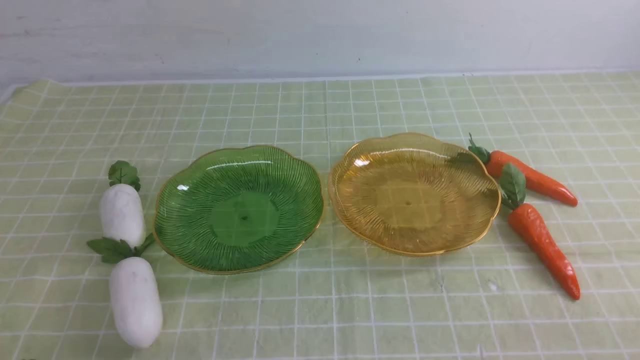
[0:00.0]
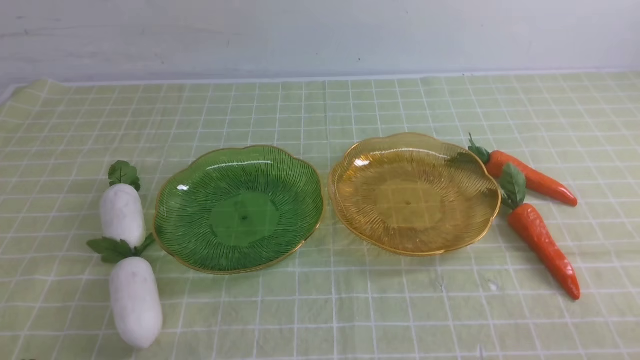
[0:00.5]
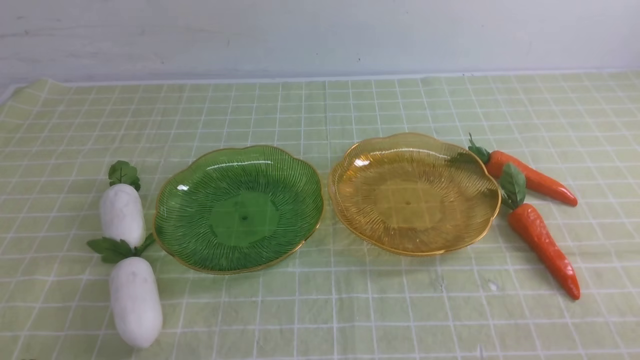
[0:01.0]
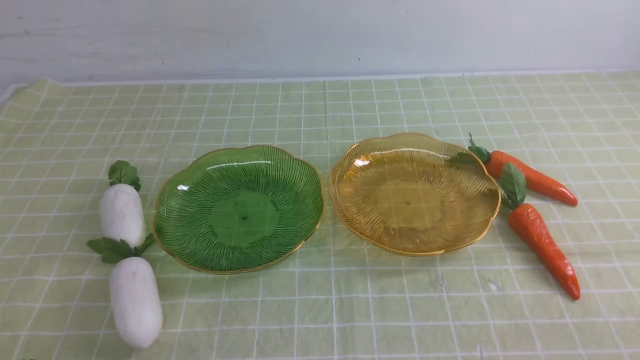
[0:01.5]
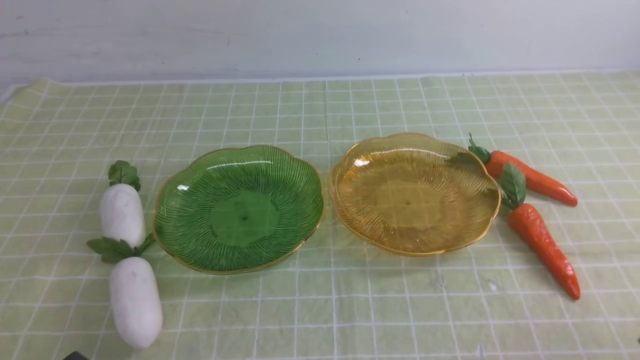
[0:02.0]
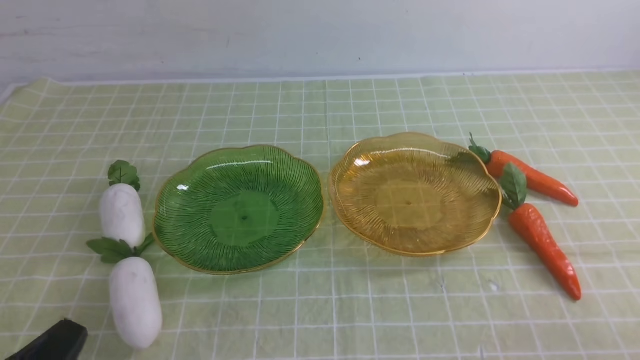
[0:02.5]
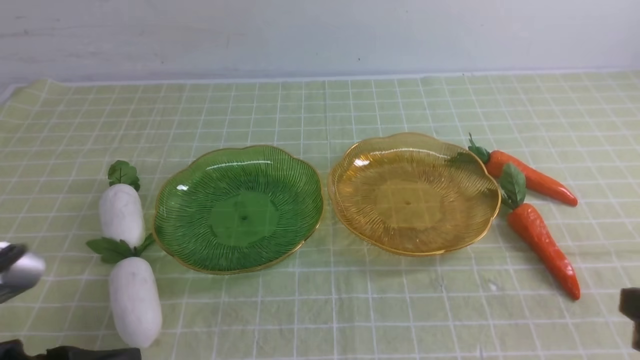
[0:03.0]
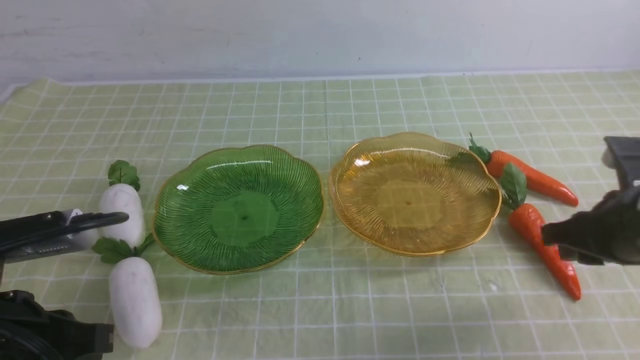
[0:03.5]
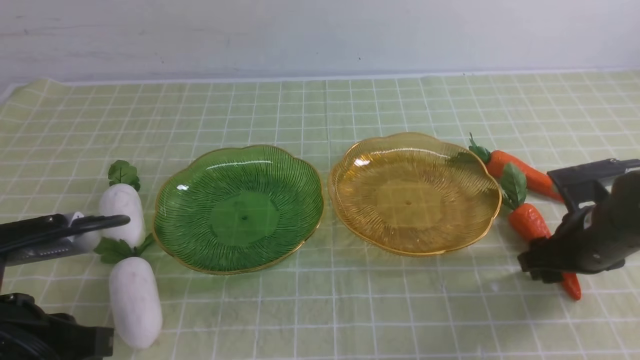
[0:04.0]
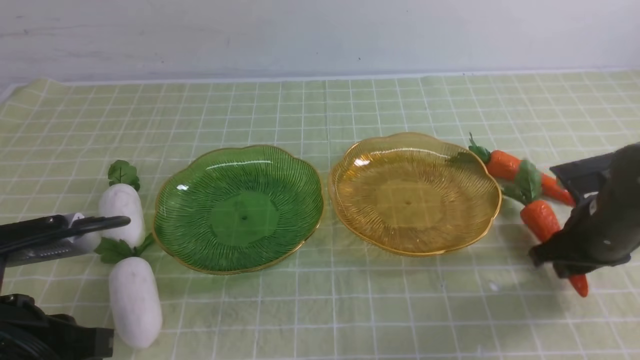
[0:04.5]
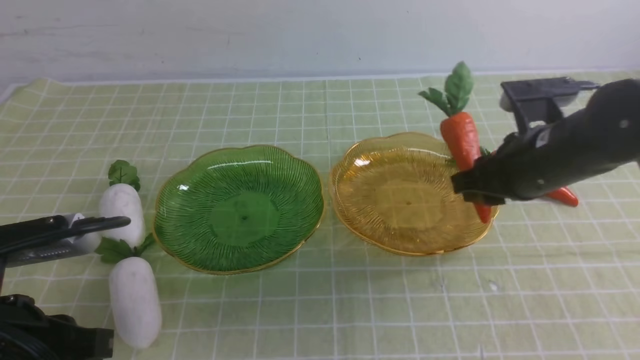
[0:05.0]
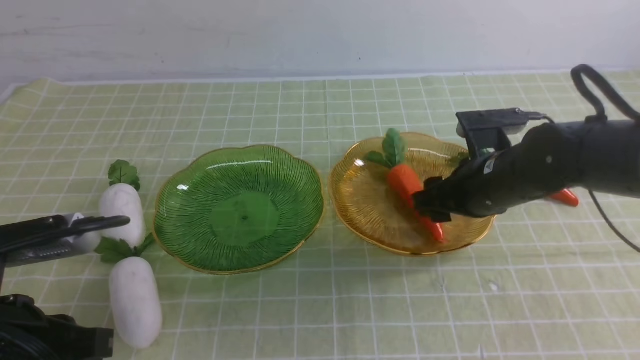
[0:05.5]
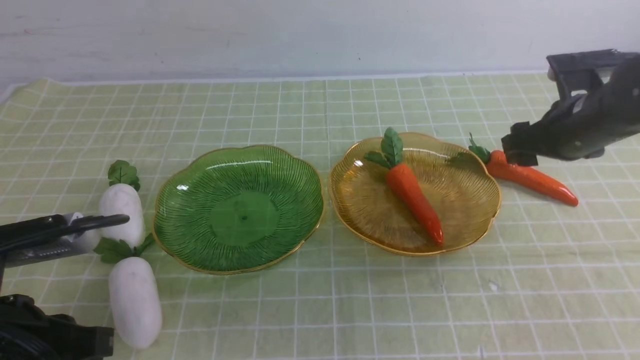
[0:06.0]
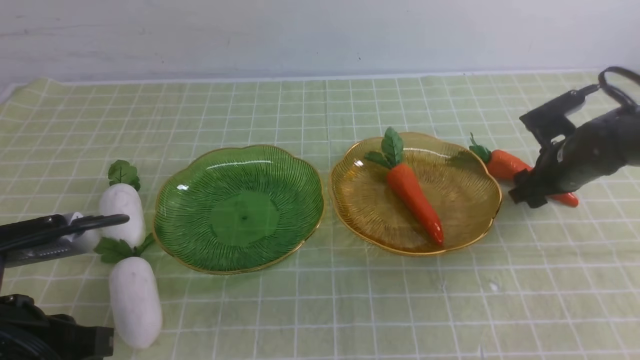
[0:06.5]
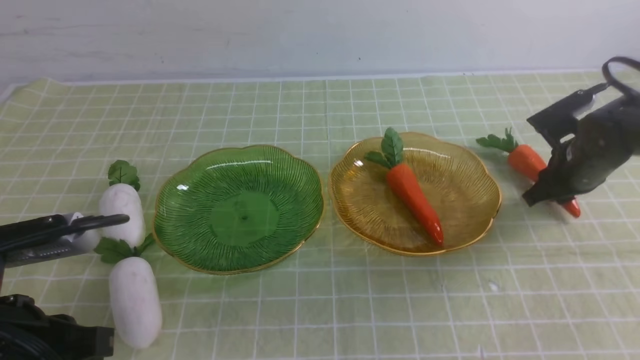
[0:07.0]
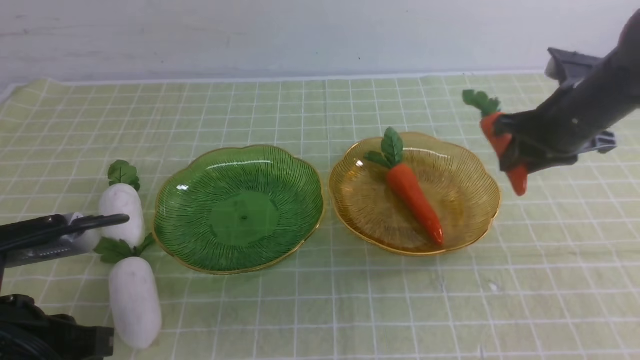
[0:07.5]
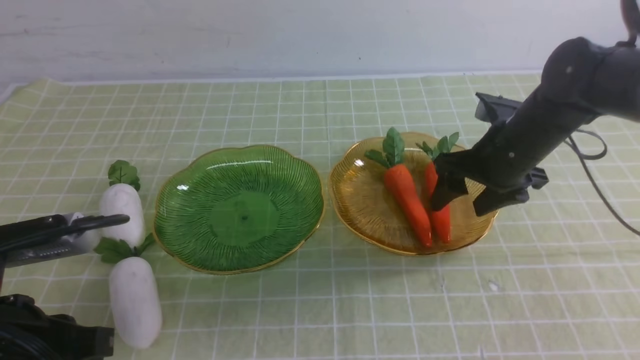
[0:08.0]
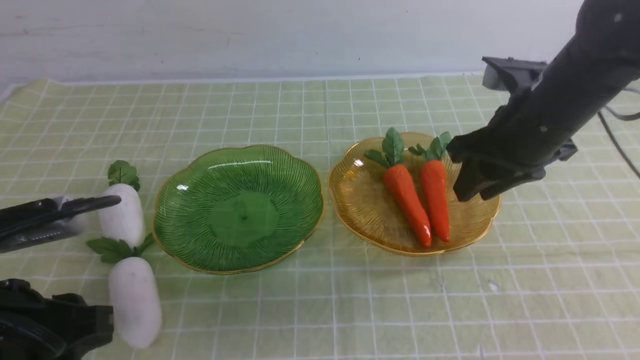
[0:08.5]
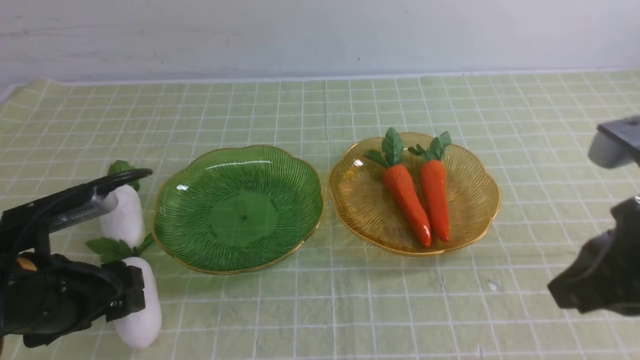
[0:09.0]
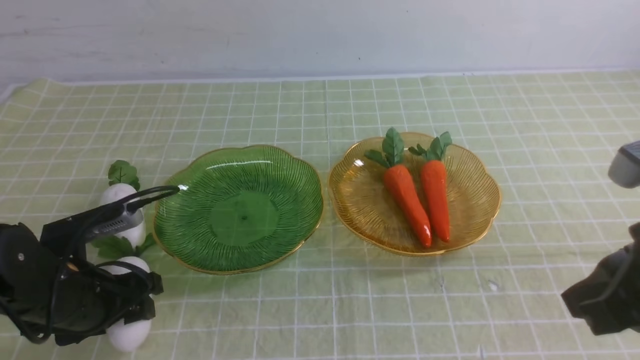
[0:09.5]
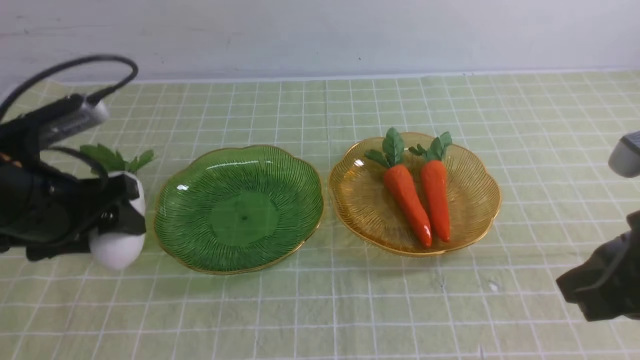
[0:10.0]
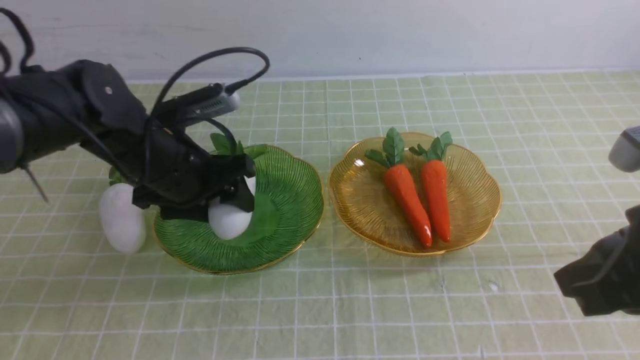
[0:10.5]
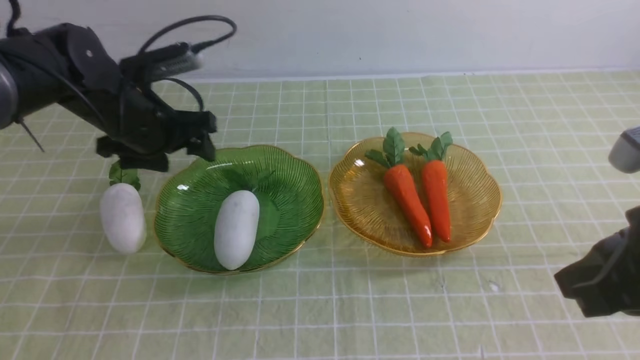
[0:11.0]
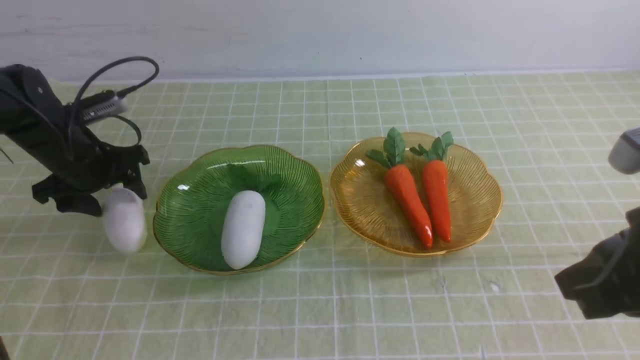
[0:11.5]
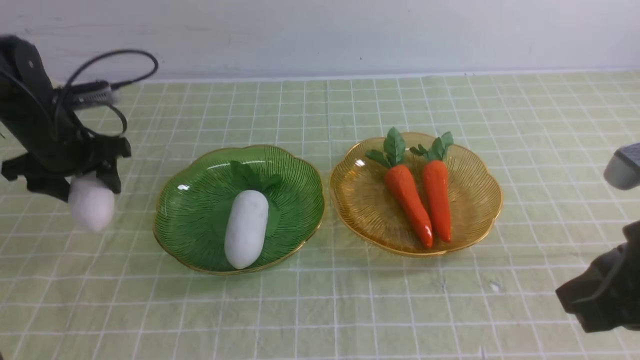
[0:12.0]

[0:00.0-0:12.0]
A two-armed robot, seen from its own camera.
Step, 0:00.0 to 0:08.5: use the right arm to grab a carrot and put it into the right plate.
0:02.0 to 0:04.0: The right gripper goes roughly 25 cm forward, and opens its fingers. The left gripper heads forward and upward, covering roughly 10 cm.
0:04.0 to 0:06.0: The right gripper heads forward and upward, covering approximately 10 cm, reaches some 10 cm to the left, then returns, and closes, then opens again.
0:06.0 to 0:08.0: The right gripper heads to the left, covering approximately 5 cm, and closes, then reopens.
0:08.0 to 0:10.0: The left gripper heads forward, covering roughly 15 cm, and opens. Meanwhile the right gripper is displaced backward and upward by approximately 25 cm, and closes its fingers.
0:10.0 to 0:12.0: The left gripper heads forward and to the left, covering about 15 cm.

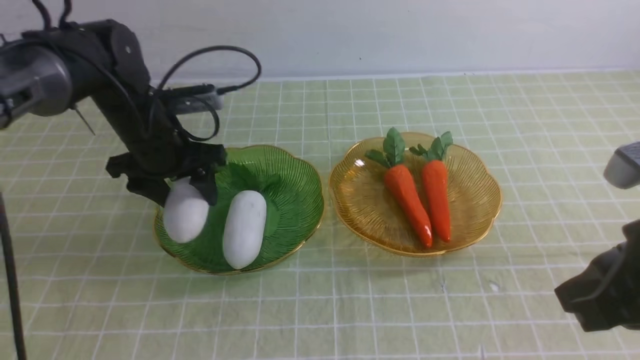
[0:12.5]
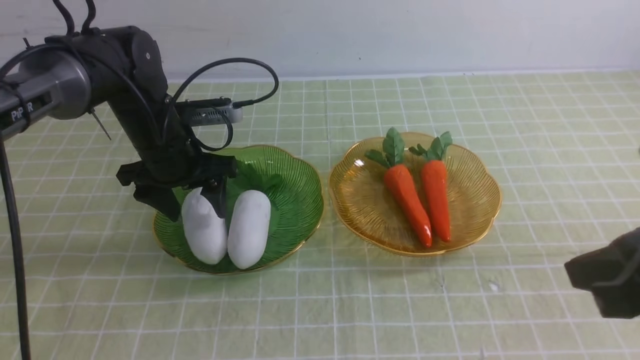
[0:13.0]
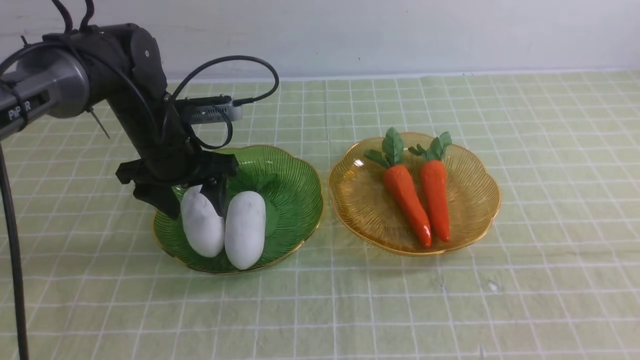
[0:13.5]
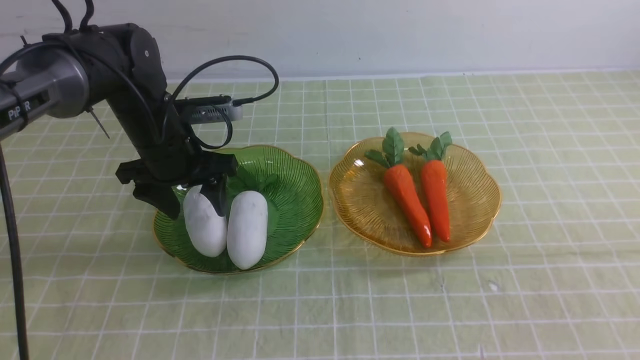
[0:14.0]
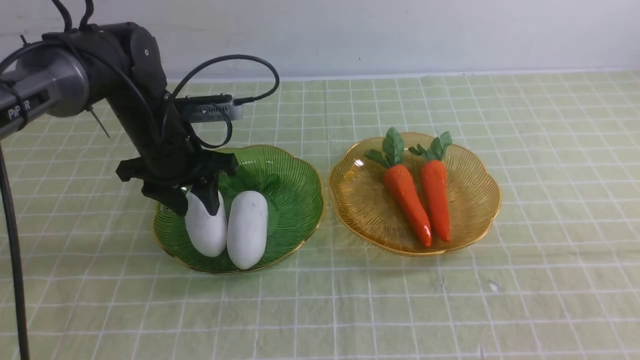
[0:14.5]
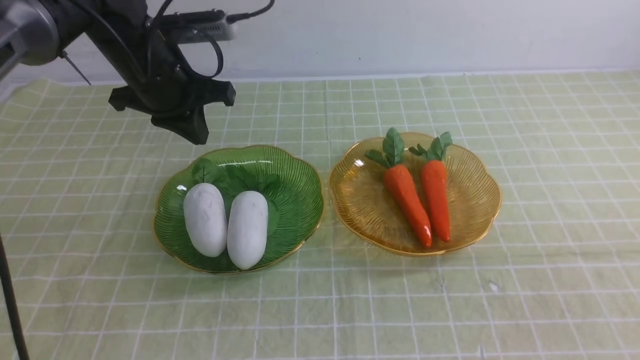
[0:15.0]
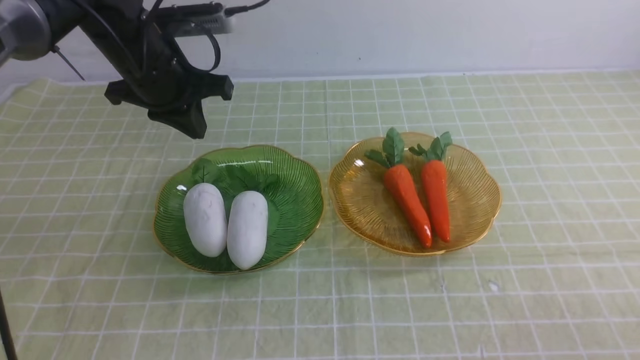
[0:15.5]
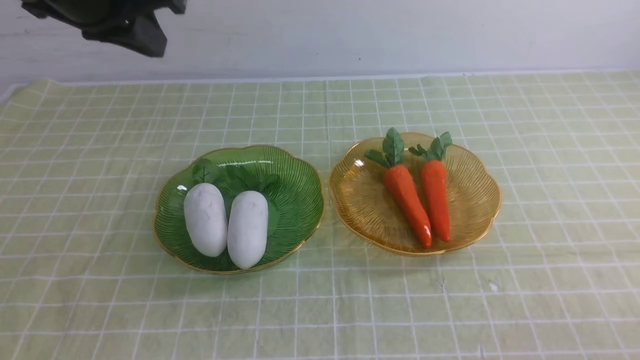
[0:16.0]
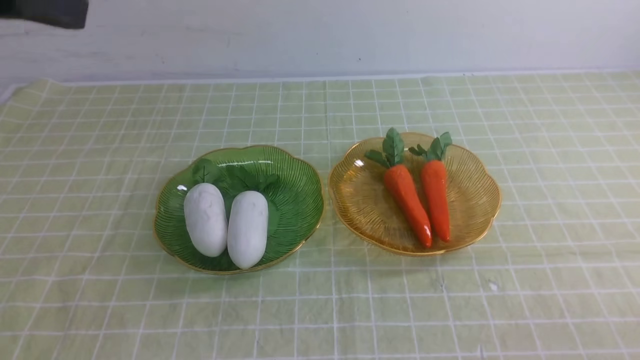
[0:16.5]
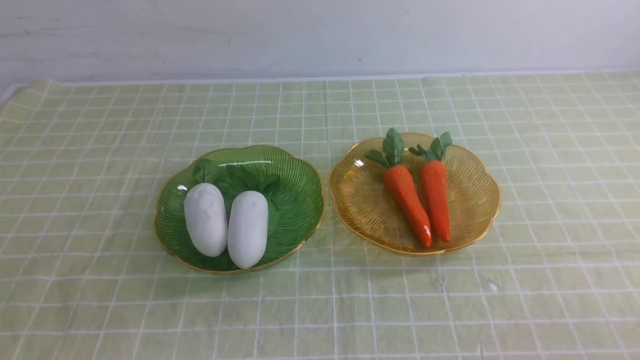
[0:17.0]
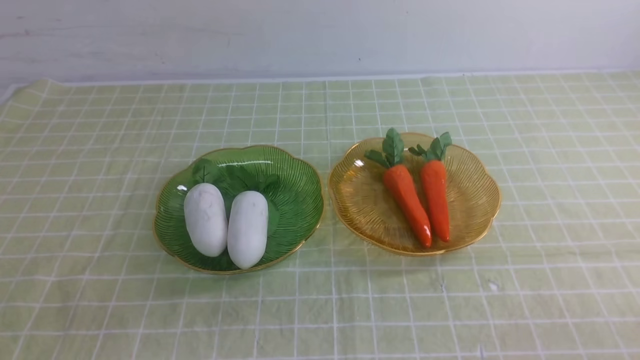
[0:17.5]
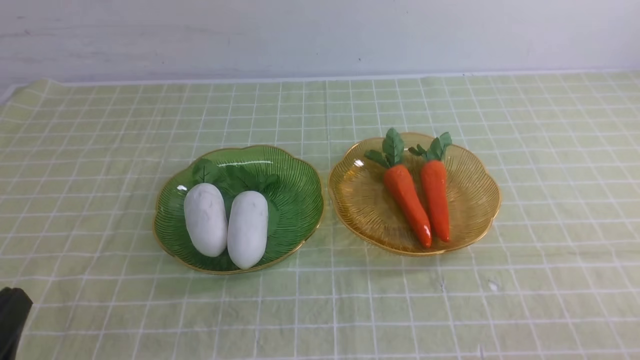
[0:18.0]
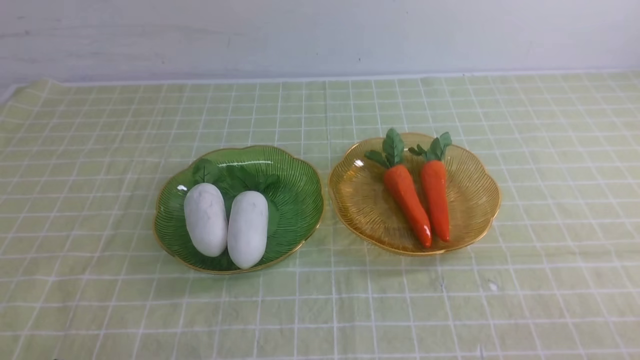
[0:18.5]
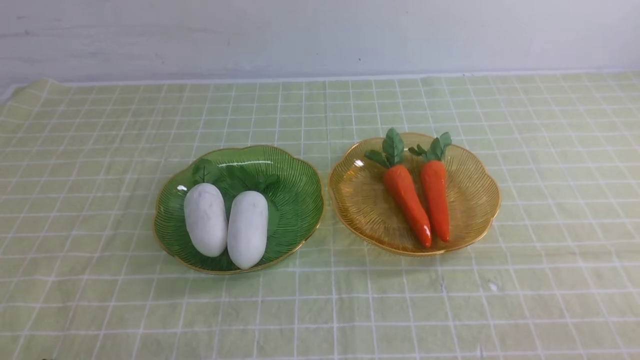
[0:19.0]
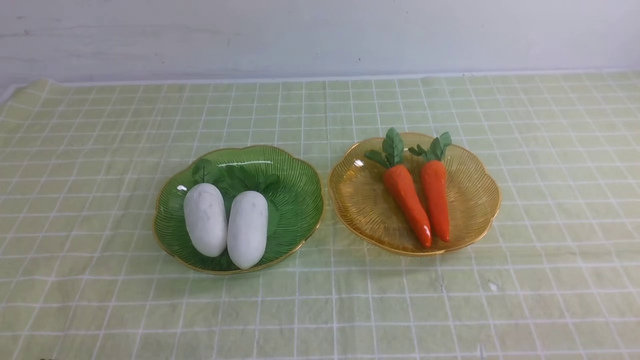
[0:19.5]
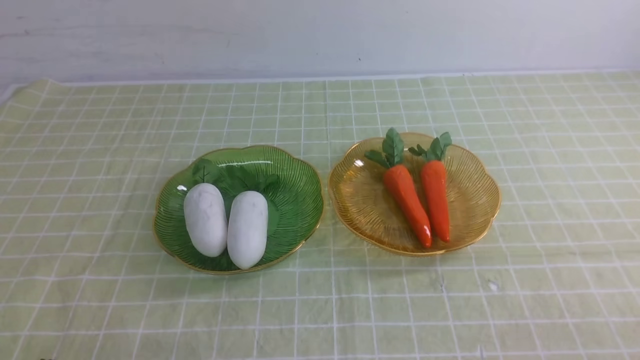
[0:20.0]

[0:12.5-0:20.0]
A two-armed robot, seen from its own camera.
0:12.5 to 0:14.5: The left gripper closes up, while the right gripper is displaced backward by some 10 cm.
0:14.5 to 0:16.5: The right gripper is displaced downward by about 15 cm, while the left gripper shifts about 30 cm upward and backward, and closes up.
0:16.5 to 0:18.0: The left gripper is displaced downward and backward by some 30 cm.
0:18.0 to 0:20.0: The left gripper is displaced downward by approximately 5 cm.
